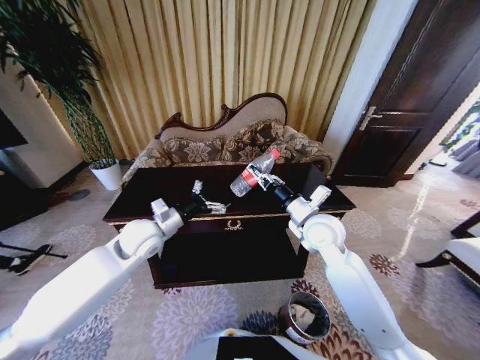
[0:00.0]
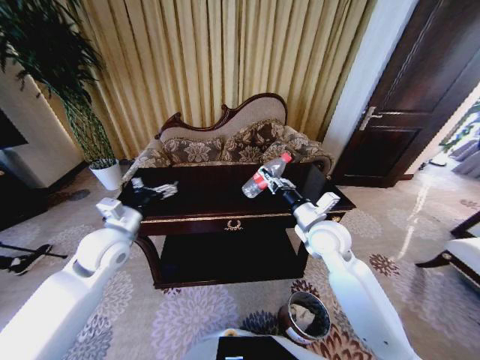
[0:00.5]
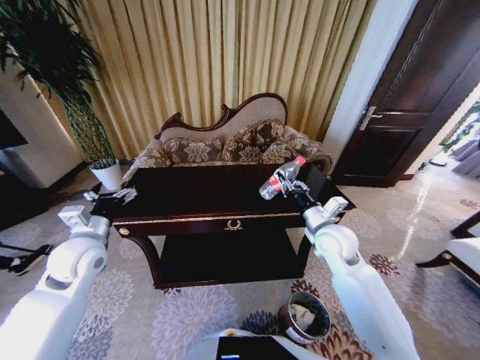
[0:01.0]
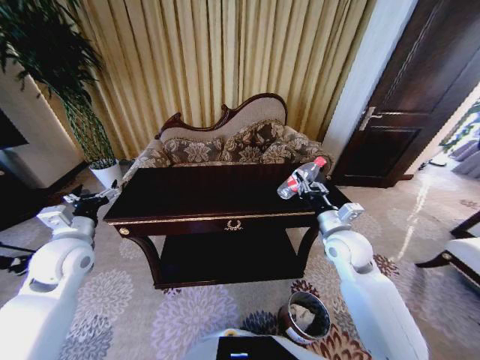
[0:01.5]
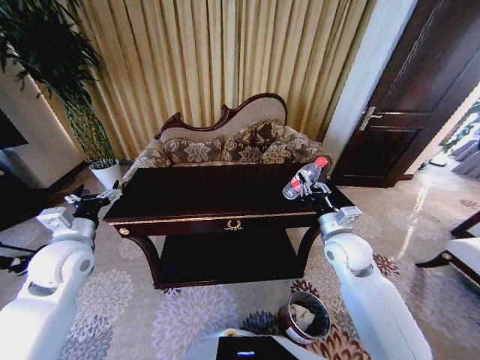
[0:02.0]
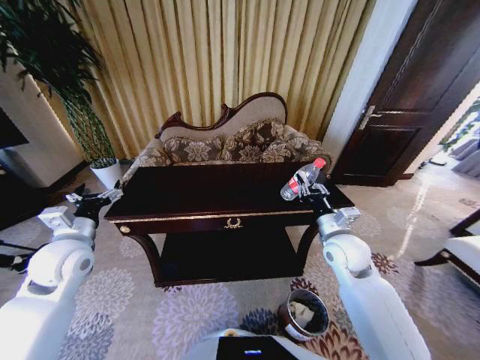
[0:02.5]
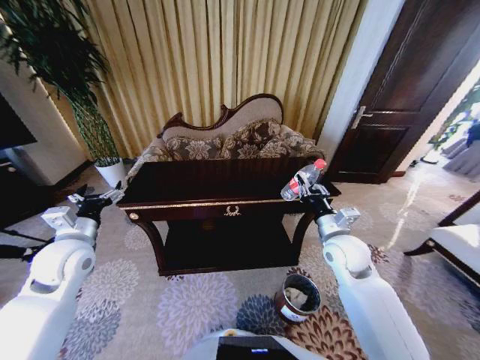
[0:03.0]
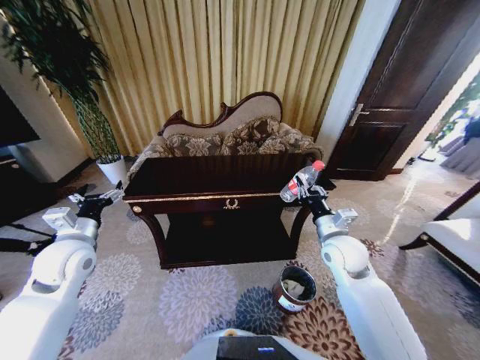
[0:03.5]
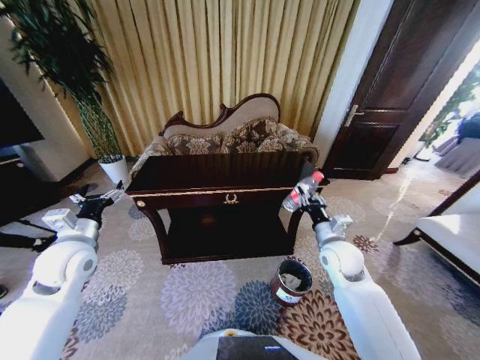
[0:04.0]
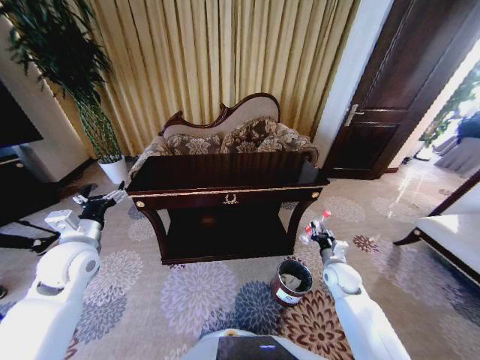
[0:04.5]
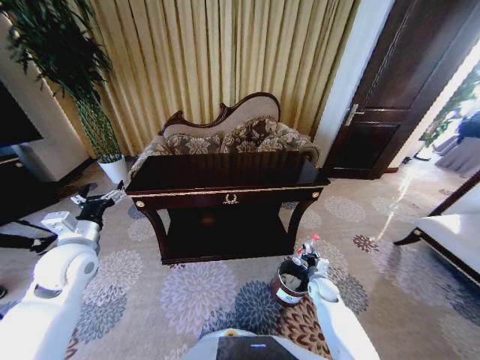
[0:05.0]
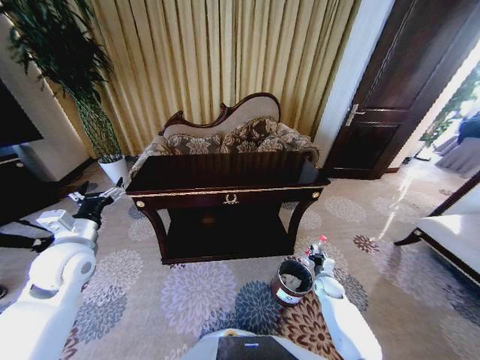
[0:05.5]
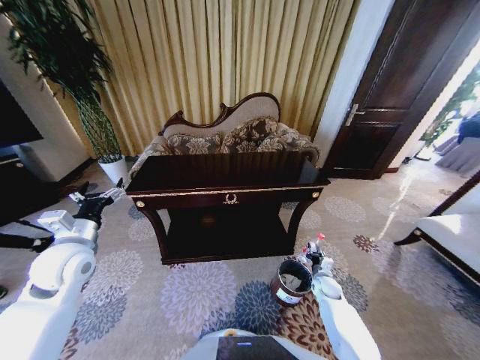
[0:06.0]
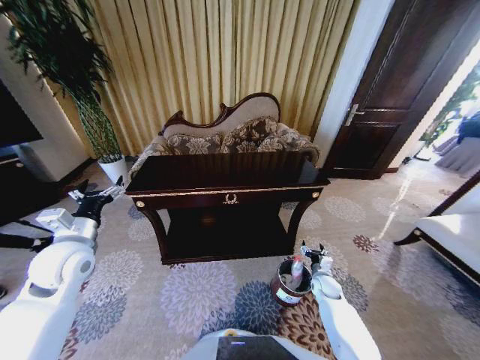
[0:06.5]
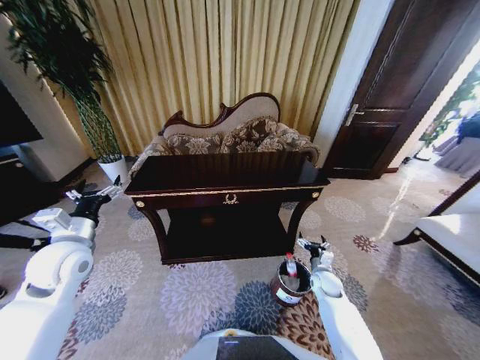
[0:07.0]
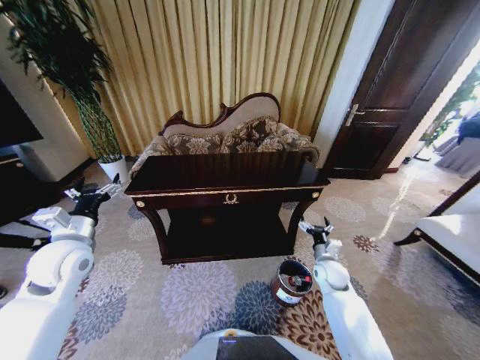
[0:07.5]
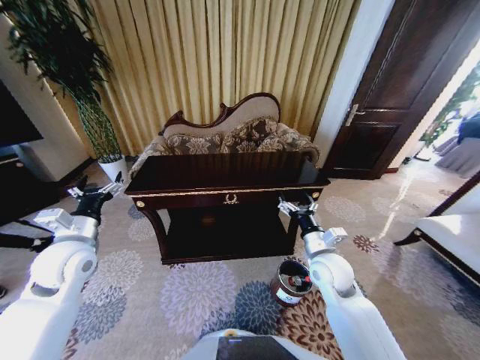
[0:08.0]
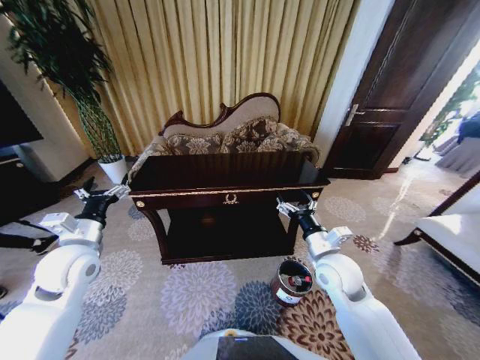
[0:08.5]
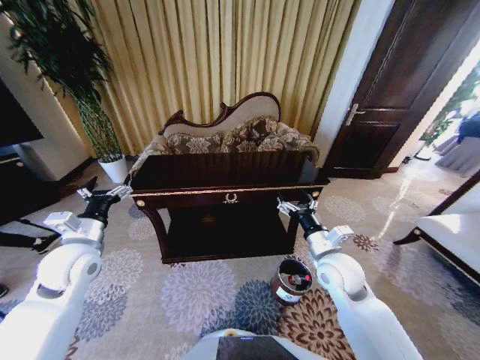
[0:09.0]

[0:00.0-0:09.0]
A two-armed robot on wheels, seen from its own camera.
Task of the whole recording: Move to the front of the table and place the trash on the table into the trash bin.
0:00.0 to 0:02.0: The left gripper moves to the left and backward, some 15 cm. The right gripper travels to the right by about 5 cm.
0:02.0 to 0:04.5: The right gripper heads downward and to the right, covering some 20 cm.
0:04.5 to 0:07.0: The right gripper heads downward, covering roughly 10 cm, and opens up.
0:07.0 to 0:09.0: The right gripper travels upward by approximately 25 cm.

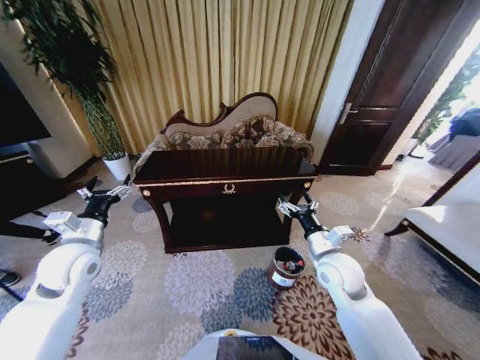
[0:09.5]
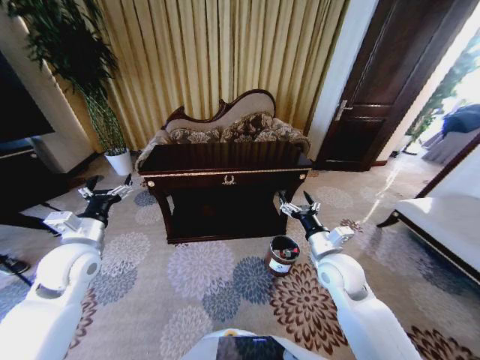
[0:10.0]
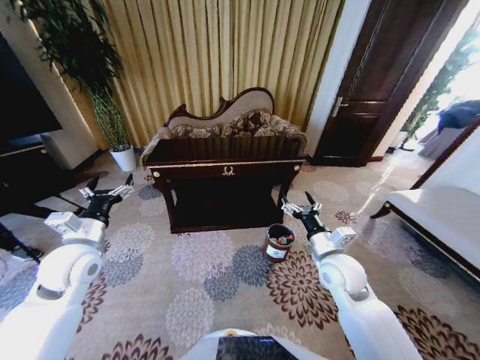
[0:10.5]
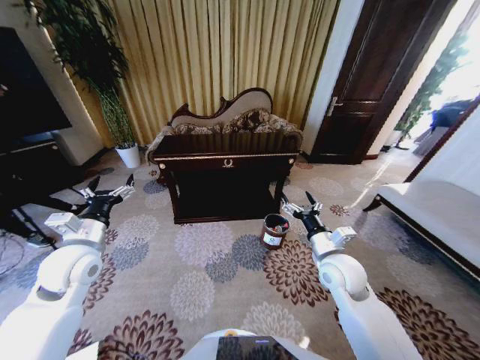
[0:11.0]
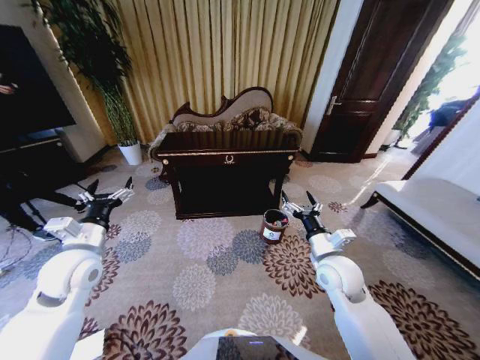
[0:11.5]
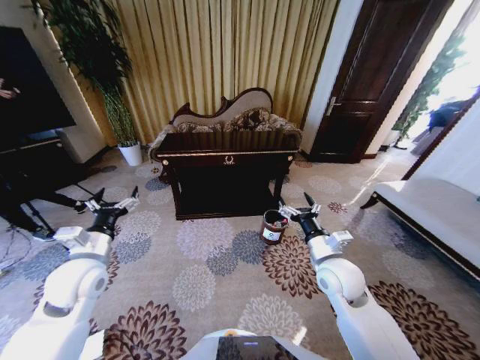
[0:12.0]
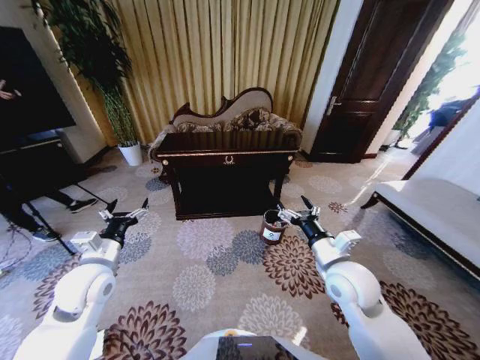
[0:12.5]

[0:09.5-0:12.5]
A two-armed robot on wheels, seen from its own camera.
Task of the whole recording: Move to the front of the table and place the trash on the table into the trash bin.
0:11.0 to 0:12.5: The left gripper changes place by about 5 cm.

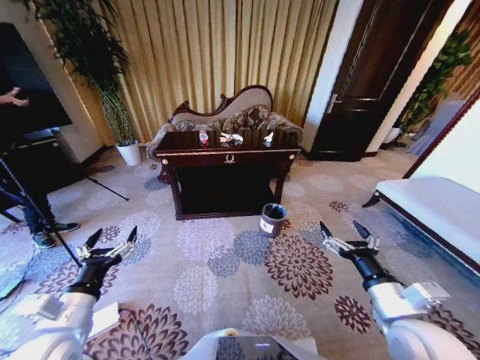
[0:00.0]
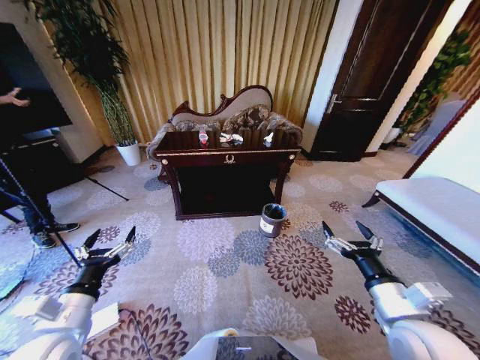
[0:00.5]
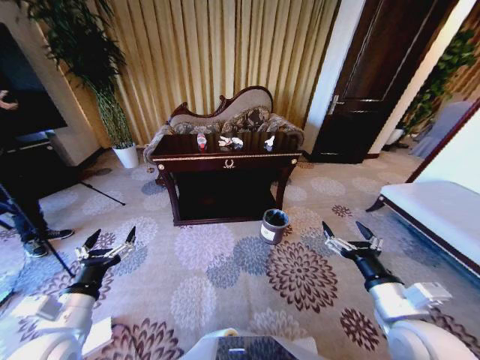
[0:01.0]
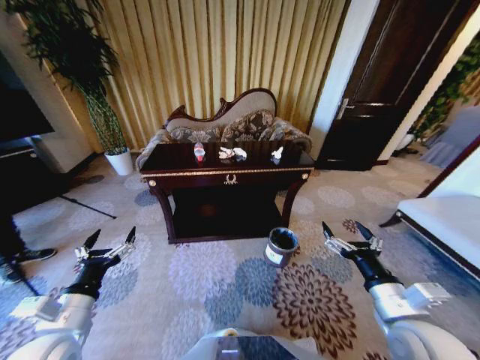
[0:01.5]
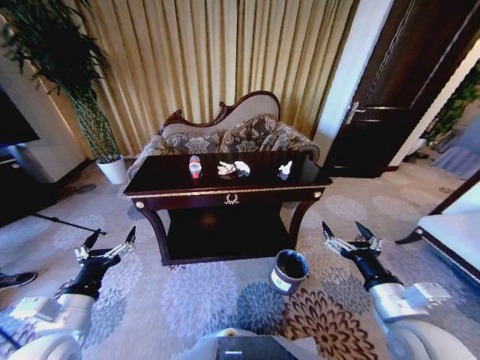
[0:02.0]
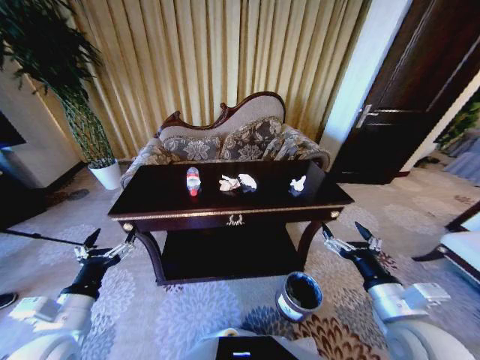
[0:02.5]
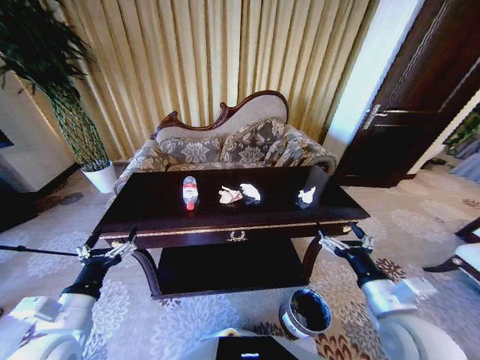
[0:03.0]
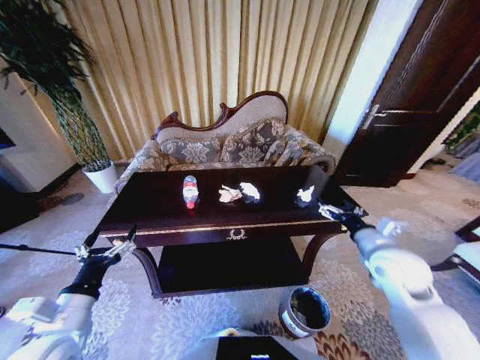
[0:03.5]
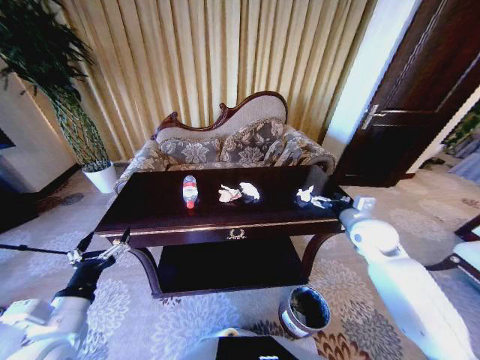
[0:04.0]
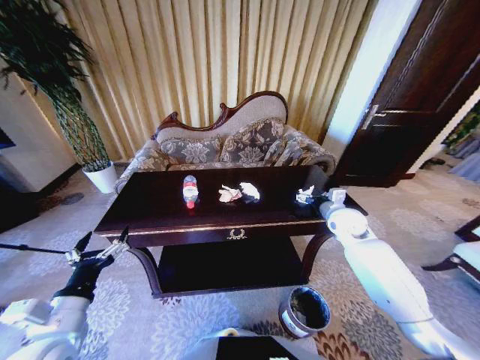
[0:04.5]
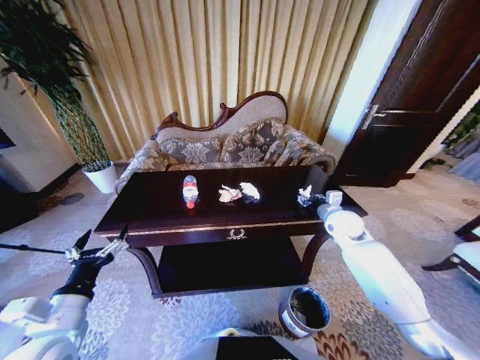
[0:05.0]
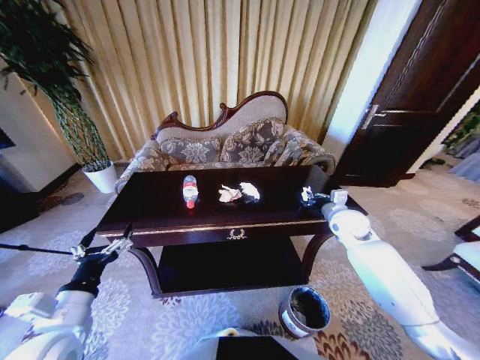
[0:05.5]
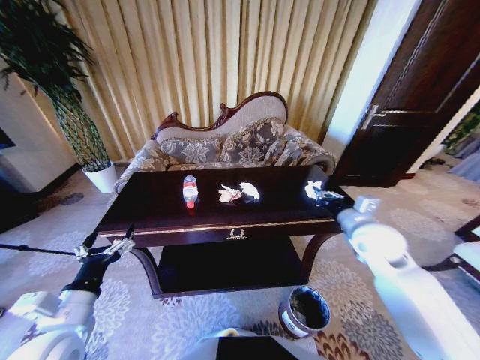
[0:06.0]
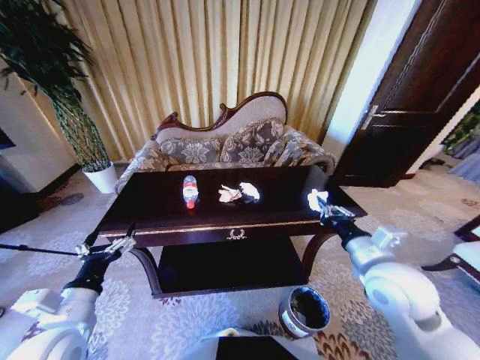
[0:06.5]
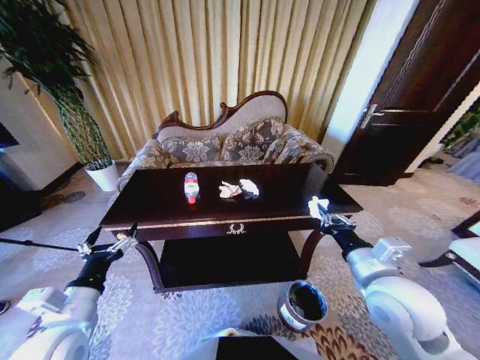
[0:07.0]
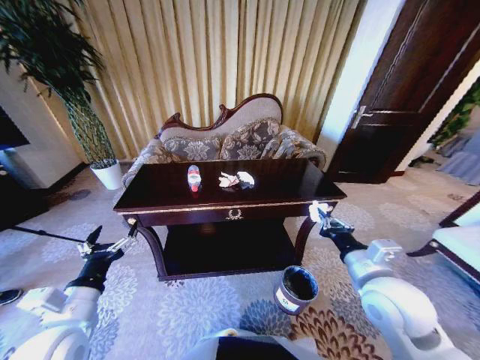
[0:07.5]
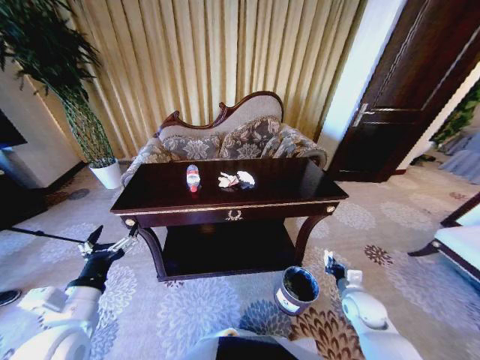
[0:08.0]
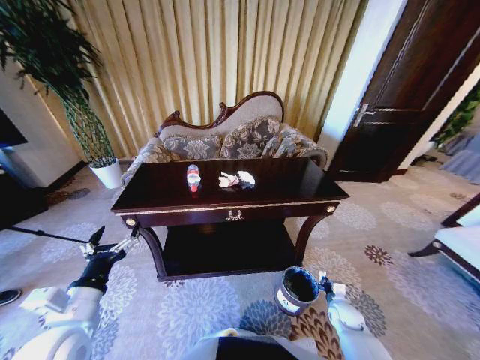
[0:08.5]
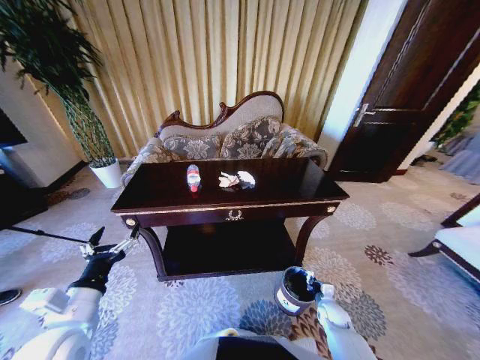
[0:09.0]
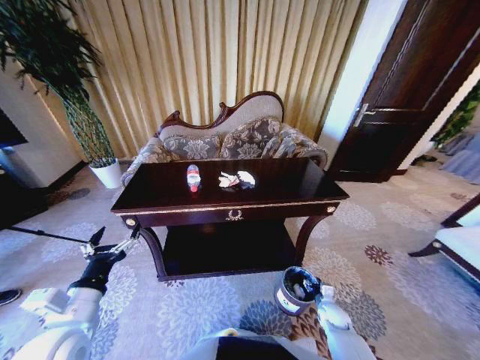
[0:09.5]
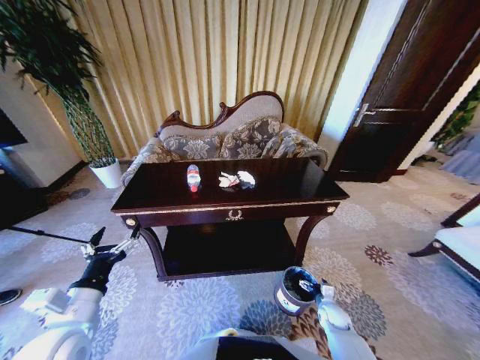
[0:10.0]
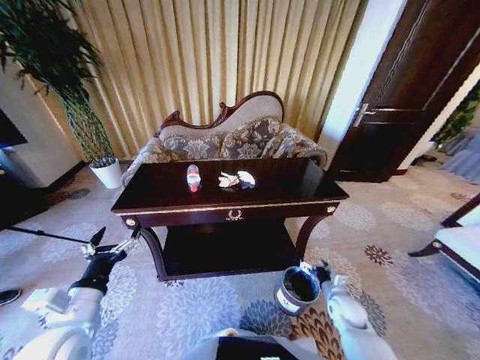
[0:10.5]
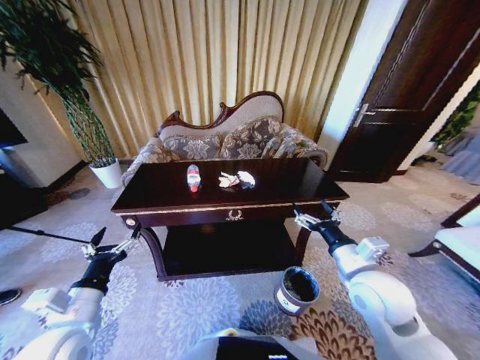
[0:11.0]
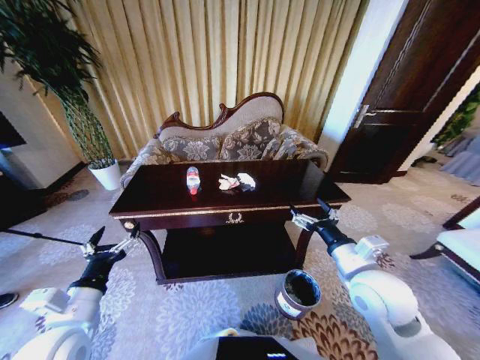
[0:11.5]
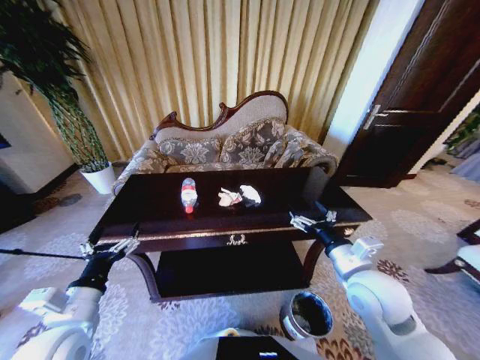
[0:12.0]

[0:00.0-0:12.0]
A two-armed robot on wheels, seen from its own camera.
Task of the whole recording: Move to the front of the table and place the trash on the table into the trash bin.
0:02.0 to 0:04.0: The right gripper moves forward, some 25 cm.
0:04.0 to 0:06.0: The right gripper shifts by roughly 5 cm, and closes its fingers.
0:06.0 to 0:08.0: The right gripper heads downward and backward, covering some 25 cm.
0:08.0 to 0:10.0: The right gripper is displaced downward by about 15 cm, and opens its fingers.
0:10.0 to 0:12.0: The right gripper travels upward by roughly 35 cm.

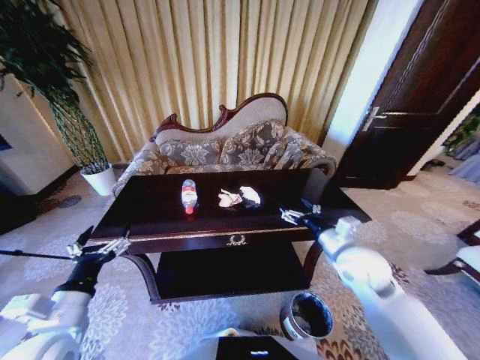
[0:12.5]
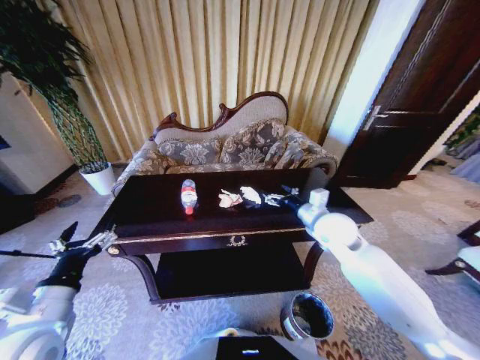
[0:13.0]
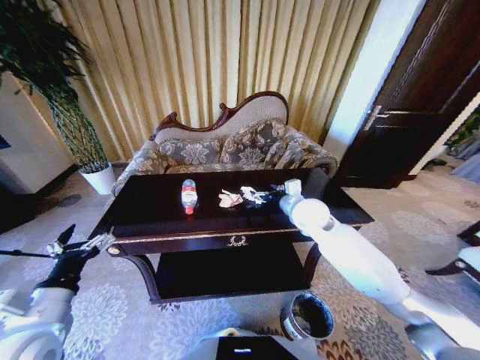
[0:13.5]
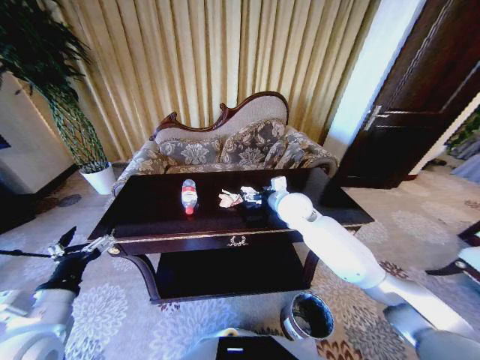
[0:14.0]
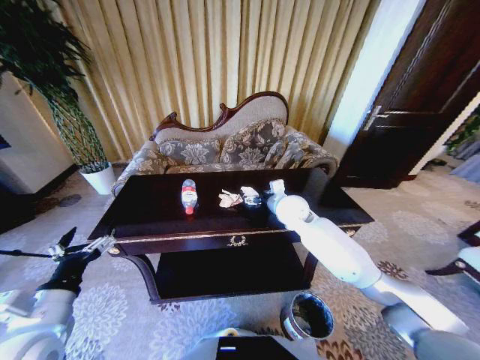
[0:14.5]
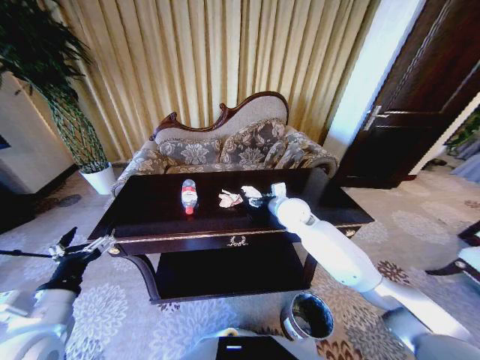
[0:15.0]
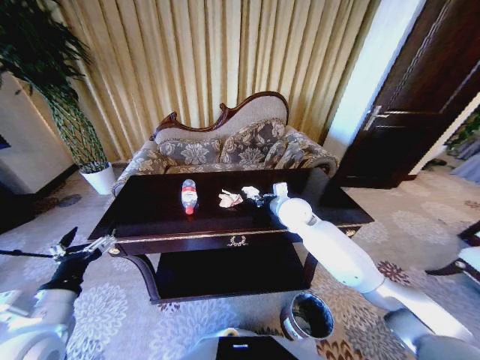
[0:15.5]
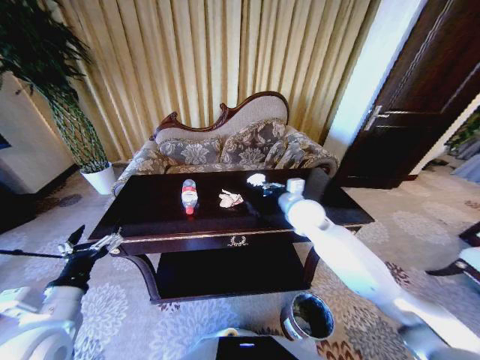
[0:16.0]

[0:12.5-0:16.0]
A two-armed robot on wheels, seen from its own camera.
Task of the whole recording: Move to the front of the table and place the trash on the table into the trash bin.
0:12.5 to 0:14.5: The right gripper moves forward and to the left, roughly 20 cm.
0:14.5 to 0:16.0: The right gripper closes its fingers.
